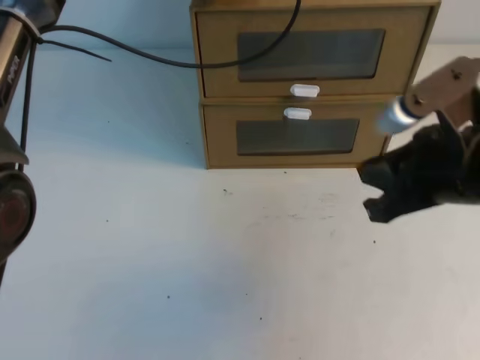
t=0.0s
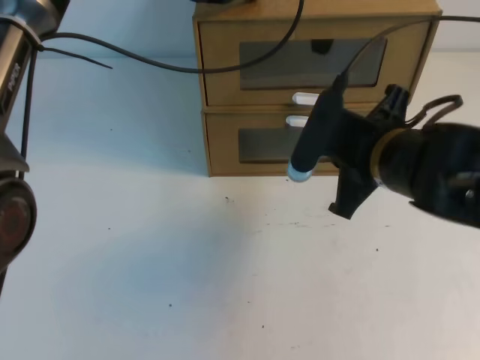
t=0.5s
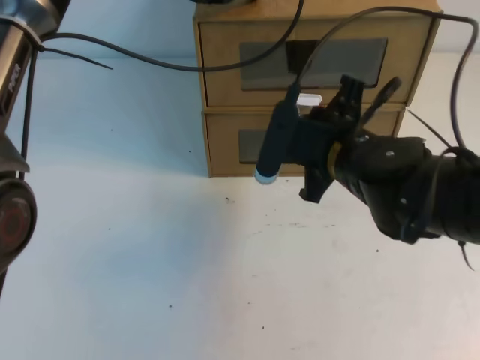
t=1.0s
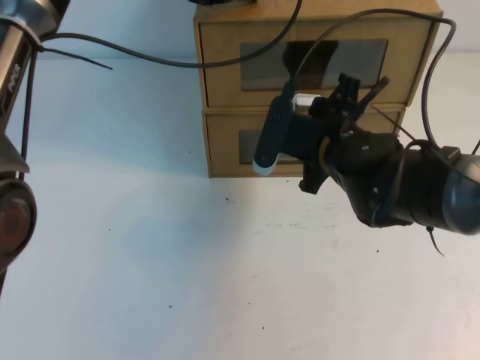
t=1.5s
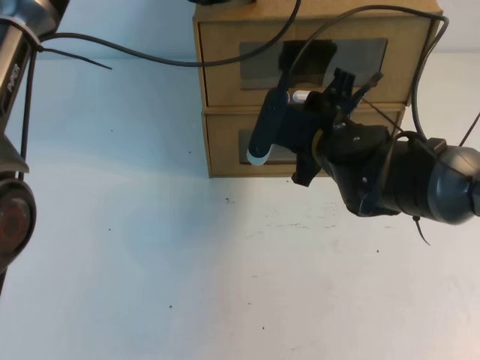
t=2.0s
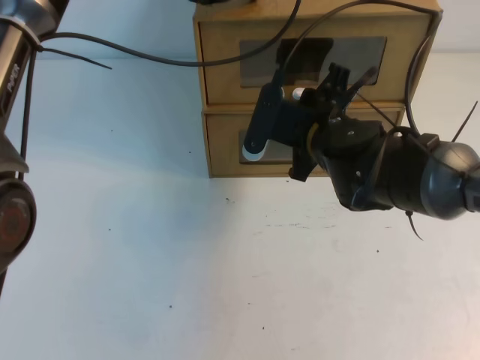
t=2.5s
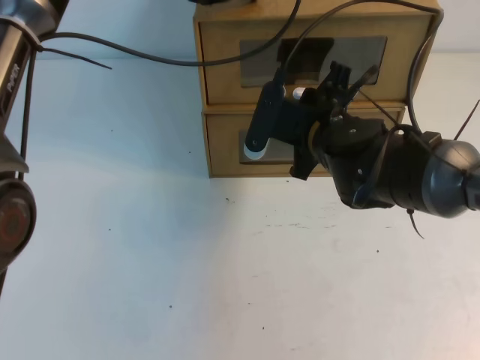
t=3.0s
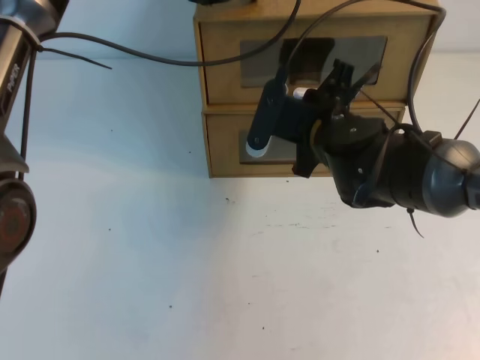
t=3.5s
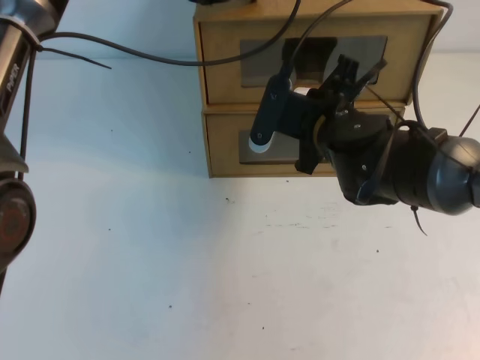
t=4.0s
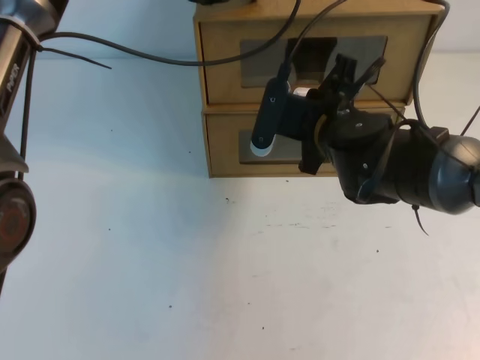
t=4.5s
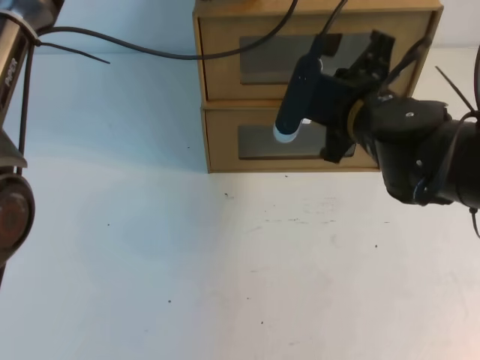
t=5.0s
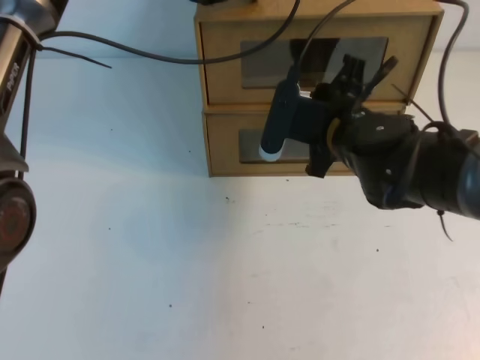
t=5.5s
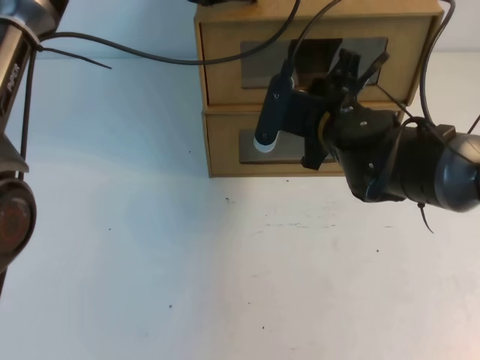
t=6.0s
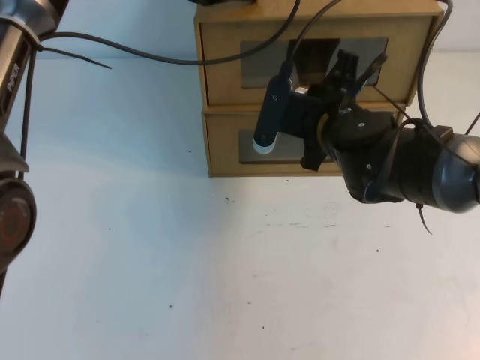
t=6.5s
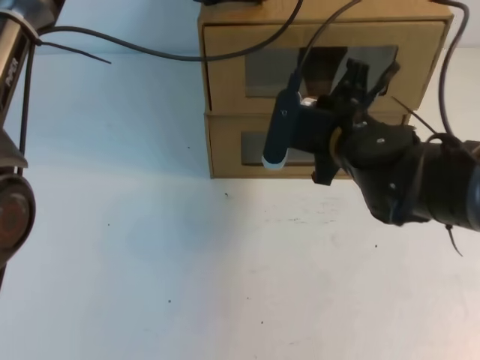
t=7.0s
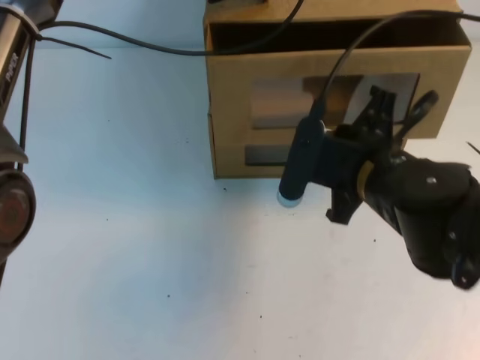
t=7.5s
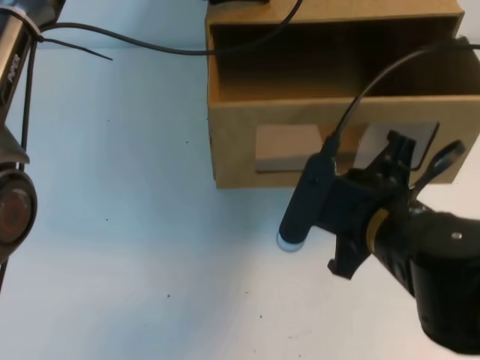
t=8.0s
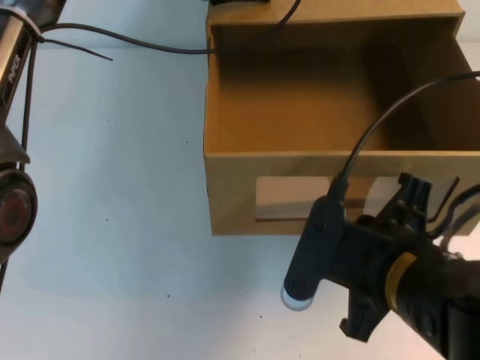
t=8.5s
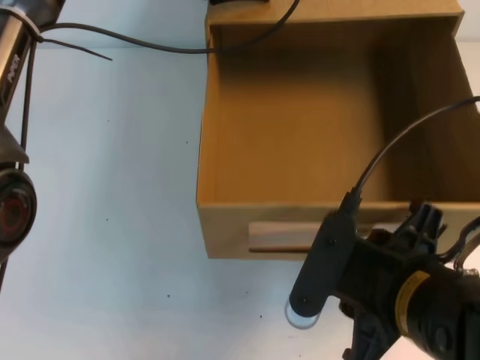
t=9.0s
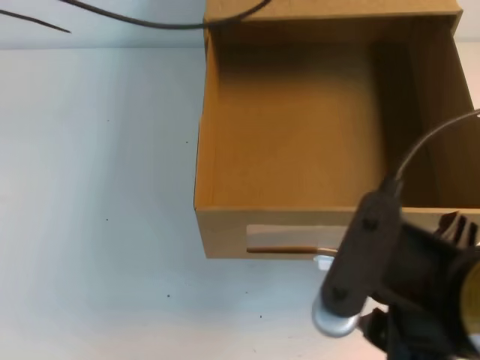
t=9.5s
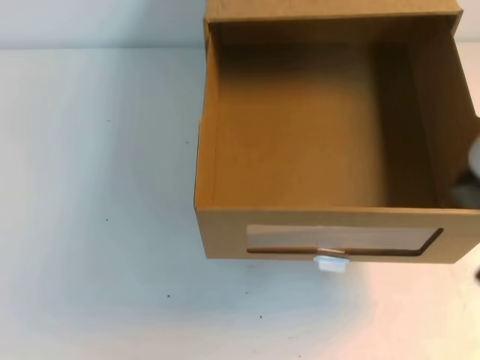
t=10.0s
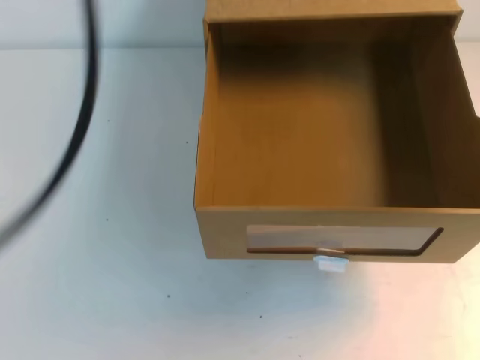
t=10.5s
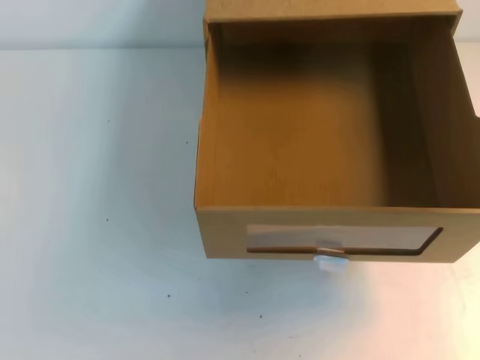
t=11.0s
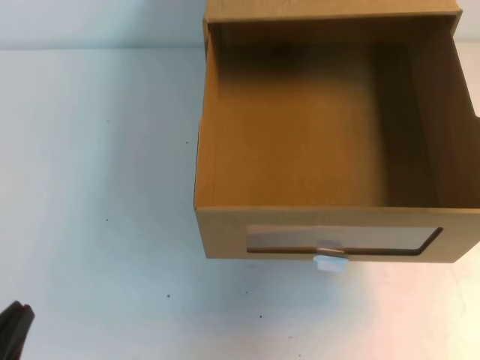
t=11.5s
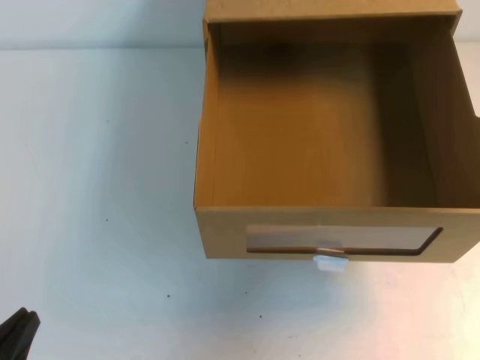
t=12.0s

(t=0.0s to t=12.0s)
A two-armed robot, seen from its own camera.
Task of the whole recording: open the shoebox on the table.
t=0.0s - t=2.0s: The right gripper is displaced forward, to the left and downward by some 20 cm, and opens up.
t=2.0s - t=4.0s: The right gripper closes up.
t=4.0s - t=6.0s: The right gripper opens up.
t=6.0s - t=8.0s: The right gripper heads backward, covering approximately 15 cm, and closes up.
t=8.0s - t=10.0s: The right gripper travels upward, backward and to the right by approximately 20 cm, and opens, then closes again, while the left gripper moves upward and backward, roughly 25 cm.
t=10.0s - t=12.0s: The left gripper shifts roughly 40 cm downward and backward. Meanwhile the right gripper travels to the right and forward by about 10 cm.

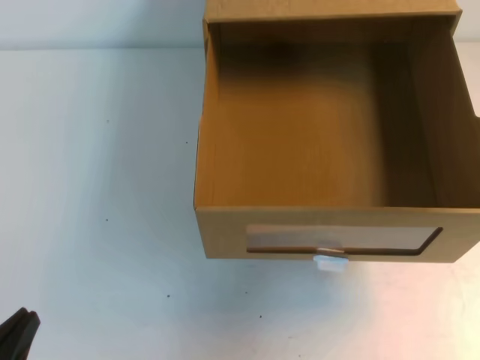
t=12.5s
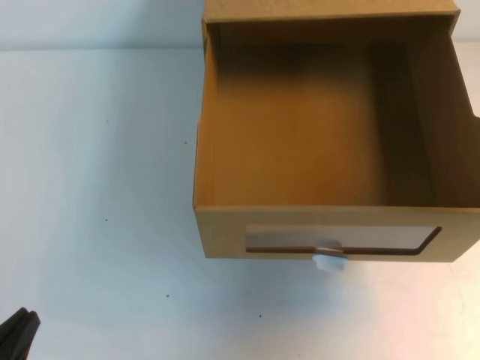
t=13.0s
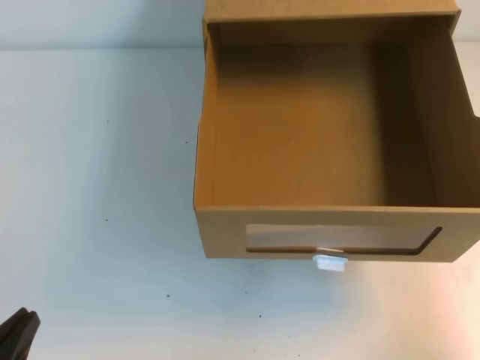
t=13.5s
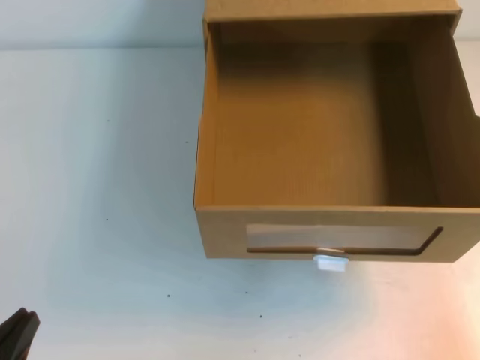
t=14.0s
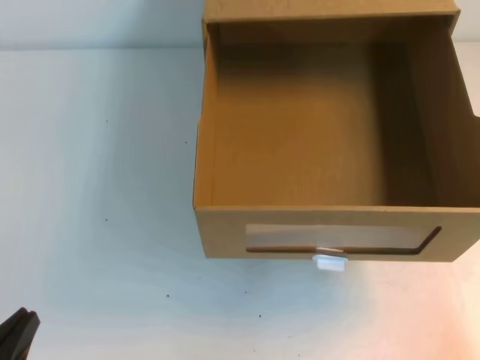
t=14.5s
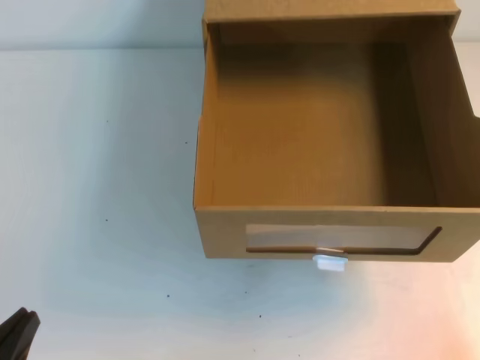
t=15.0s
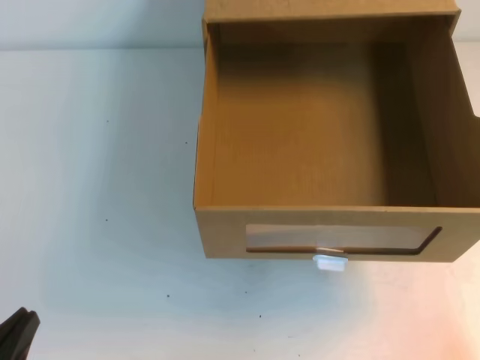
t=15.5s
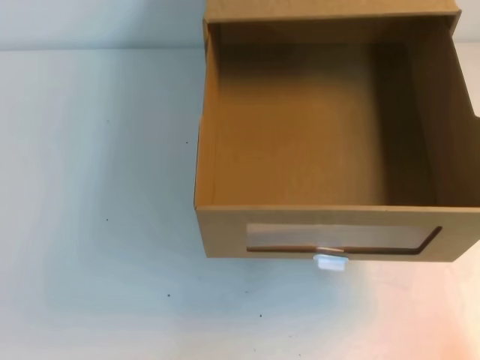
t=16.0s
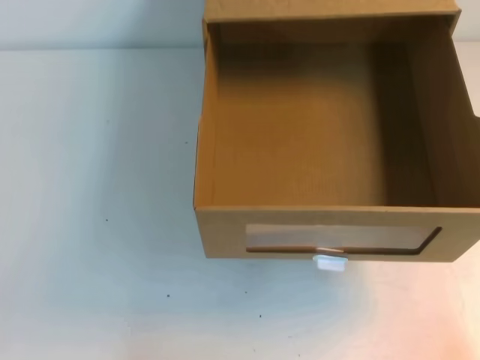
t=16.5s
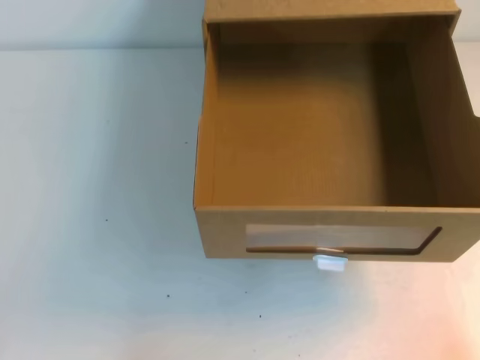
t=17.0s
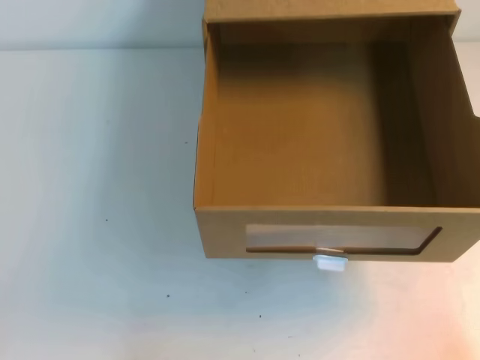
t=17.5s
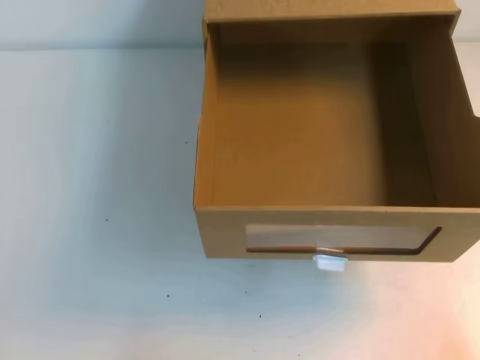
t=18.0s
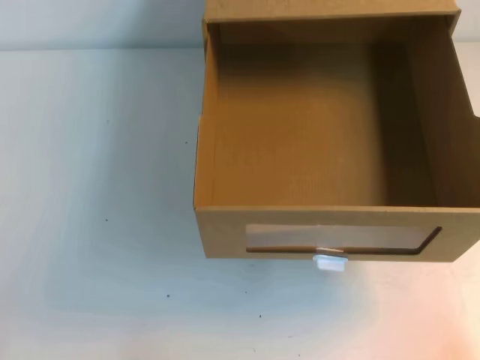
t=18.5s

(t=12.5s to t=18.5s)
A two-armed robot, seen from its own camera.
Task of the whole recording: open the shoebox on the table.
Step, t=12.5s - t=18.5s: Open the shoe box.
t=12.5s - t=14.5s: The right gripper is displaced downward and backward by about 30 cm.
t=16.5s - t=18.5s: The two grippers keep their place.

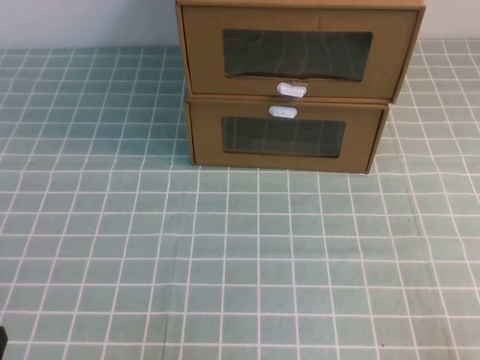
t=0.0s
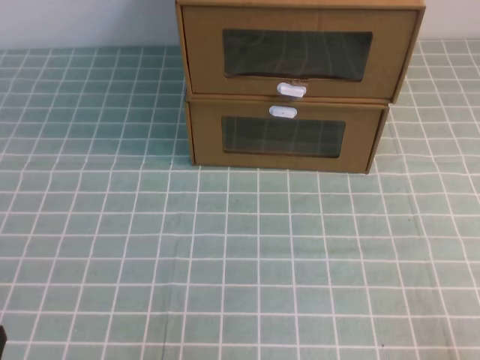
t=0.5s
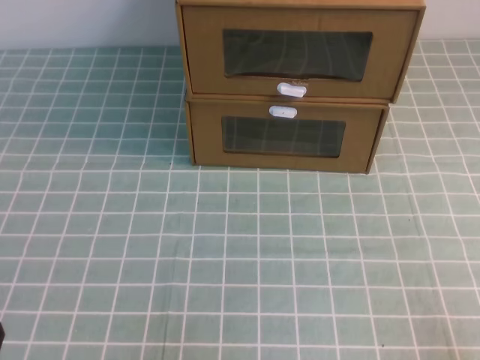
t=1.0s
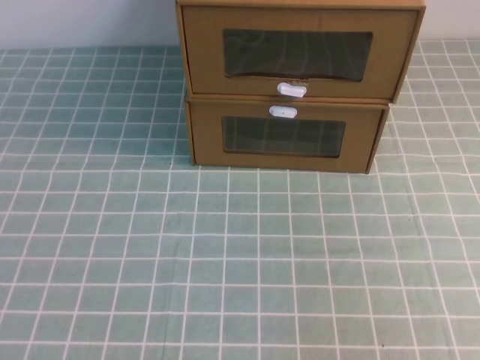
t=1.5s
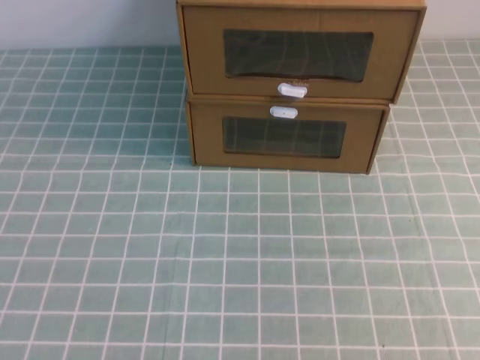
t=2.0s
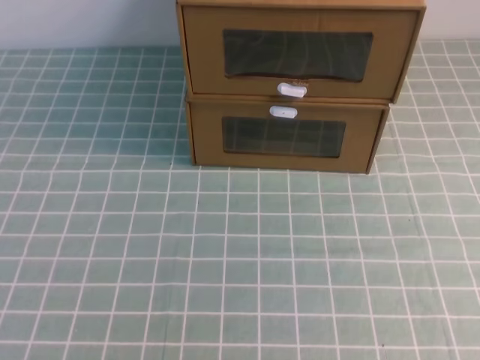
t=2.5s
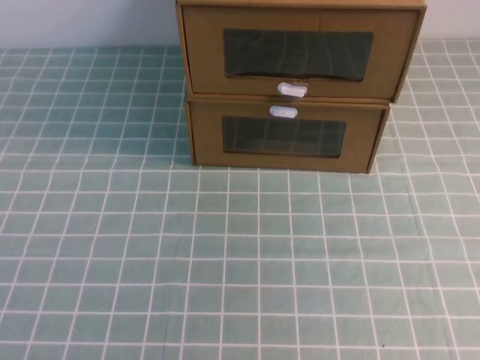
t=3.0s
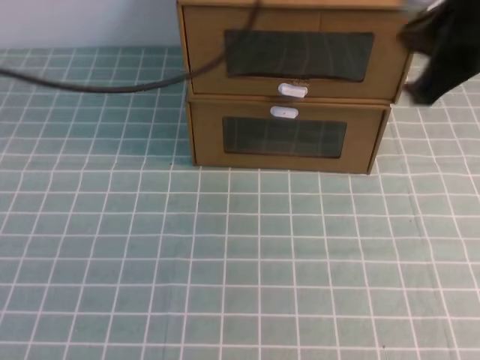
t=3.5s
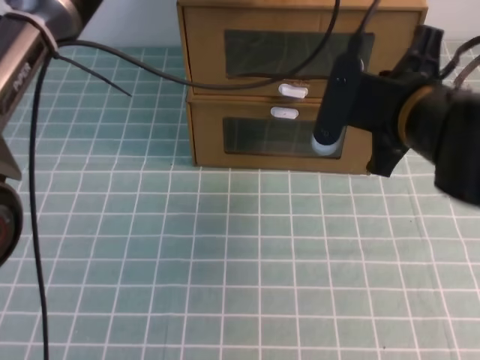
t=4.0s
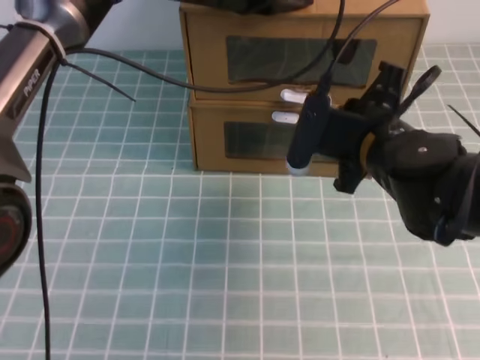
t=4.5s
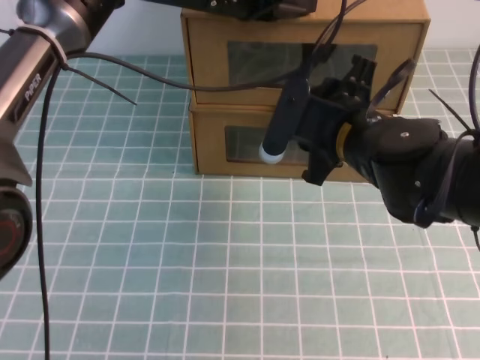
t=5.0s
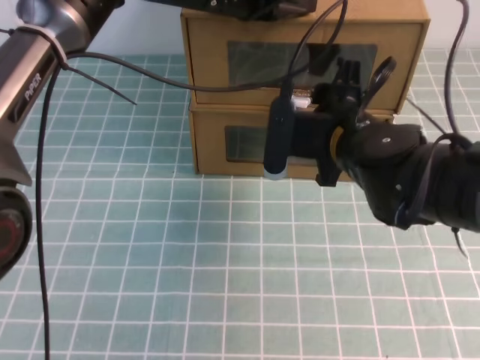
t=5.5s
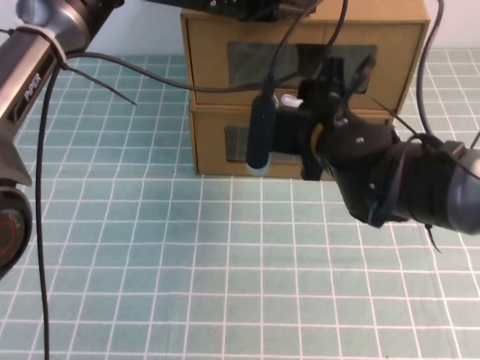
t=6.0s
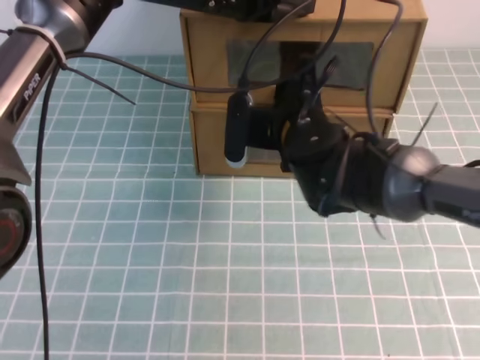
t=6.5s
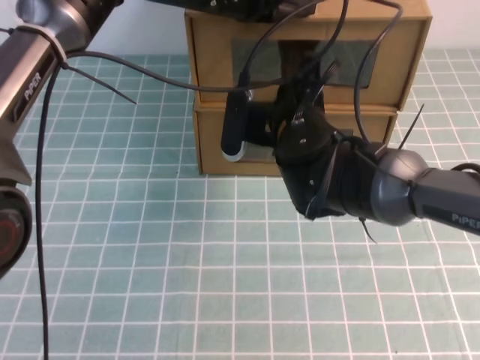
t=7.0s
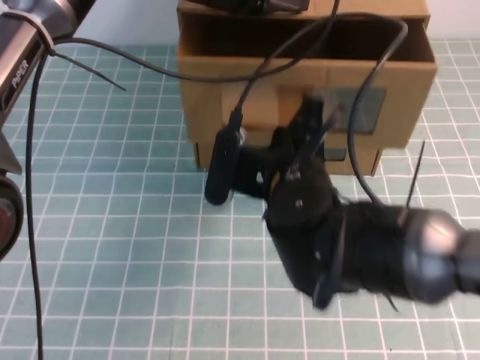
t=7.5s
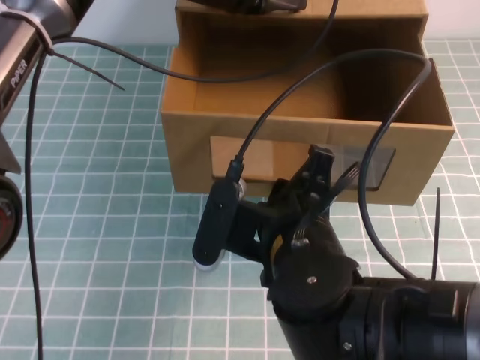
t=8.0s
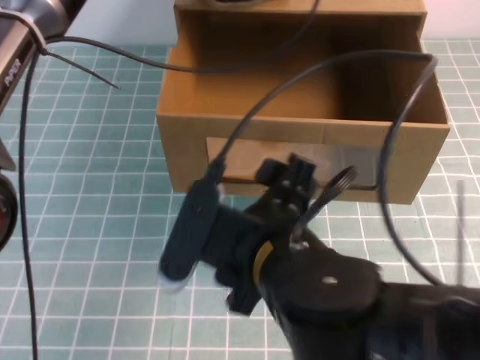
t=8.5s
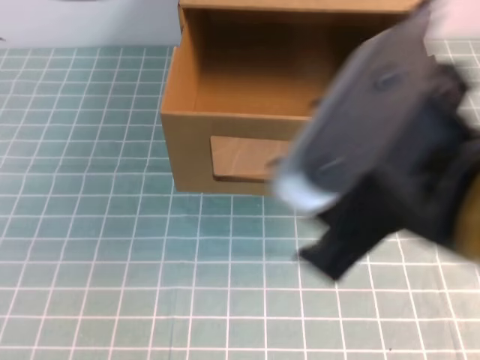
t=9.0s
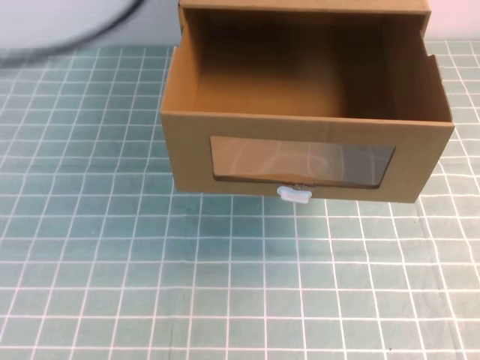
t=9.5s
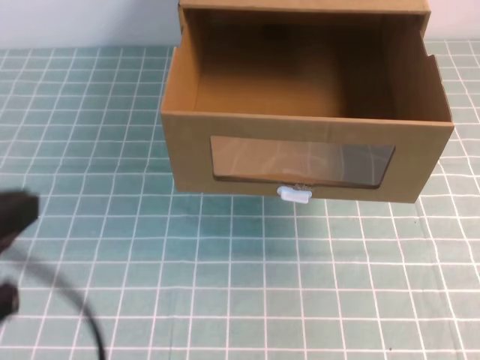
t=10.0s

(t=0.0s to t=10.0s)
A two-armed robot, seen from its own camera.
Task of the whole recording: open the shoebox on the cyan tablecloth.
t=2.0s - t=4.0s: The left gripper travels forward and to the right by roughly 50 cm. The right gripper shifts approximately 35 cm forward and to the left.
t=4.0s - t=6.0s: The right gripper heads to the left, downward and forward, covering roughly 10 cm, and opens up.
t=6.0s - t=8.0s: The right gripper shifts roughly 15 cm backward, and closes its fingers.
t=8.0s - t=10.0s: The left gripper heads backward and to the left, covering roughly 35 cm; the right gripper shifts about 35 cm to the right, upward and backward, and opens, then closes once more.
